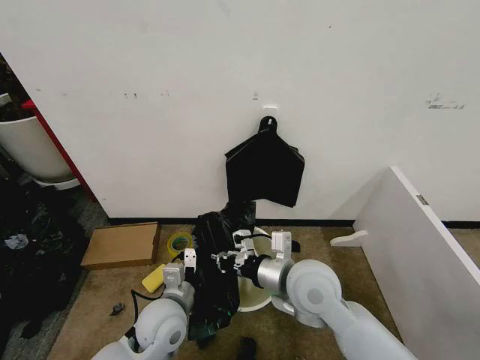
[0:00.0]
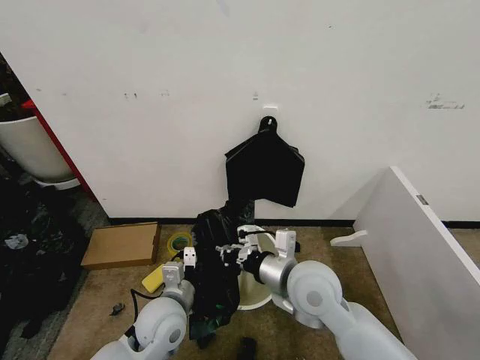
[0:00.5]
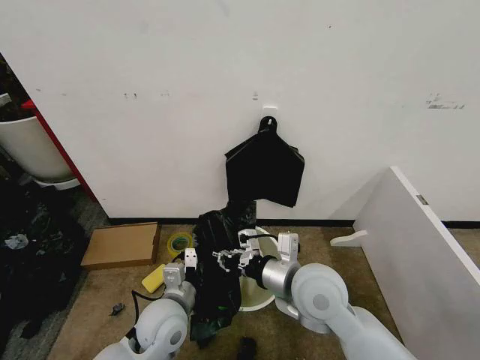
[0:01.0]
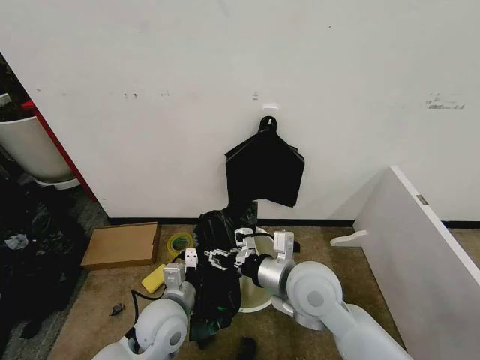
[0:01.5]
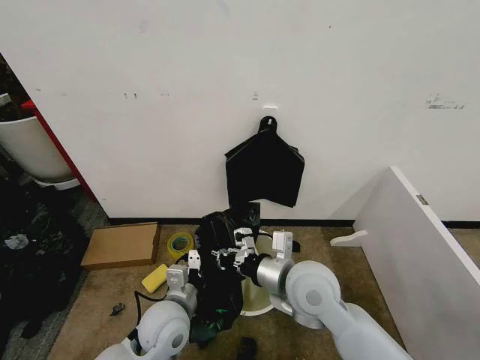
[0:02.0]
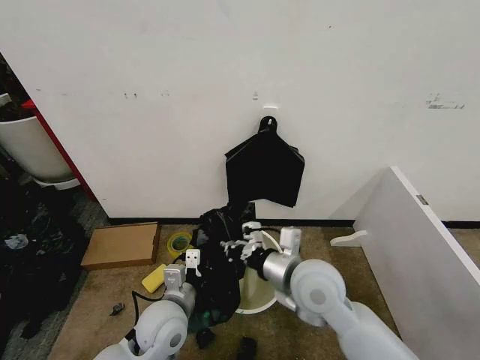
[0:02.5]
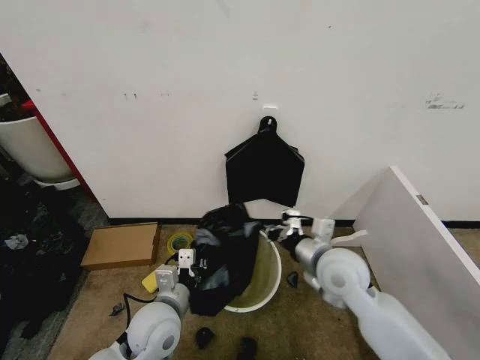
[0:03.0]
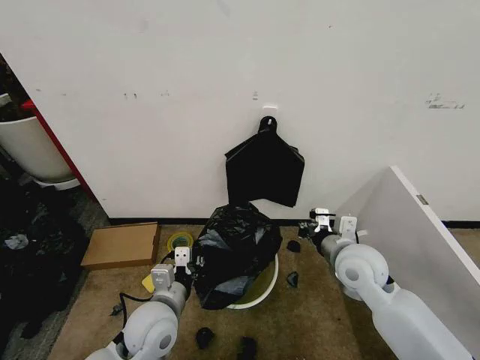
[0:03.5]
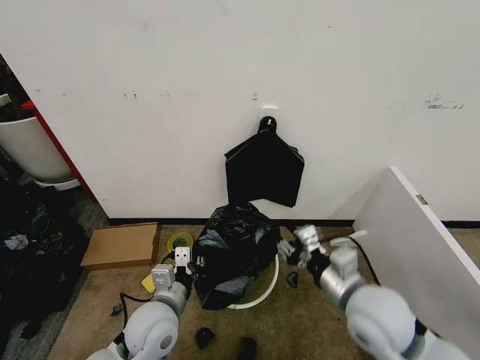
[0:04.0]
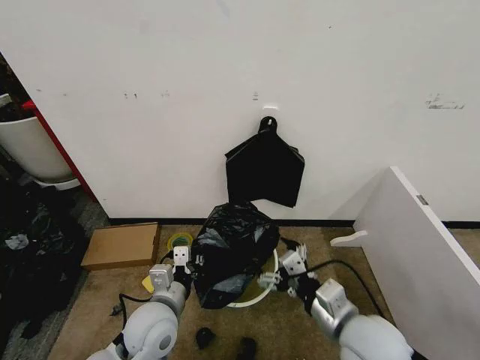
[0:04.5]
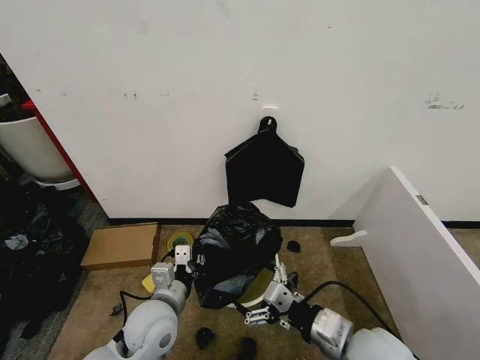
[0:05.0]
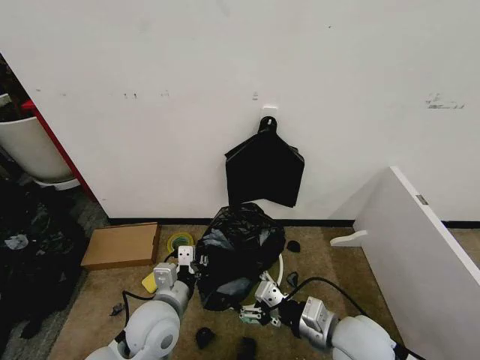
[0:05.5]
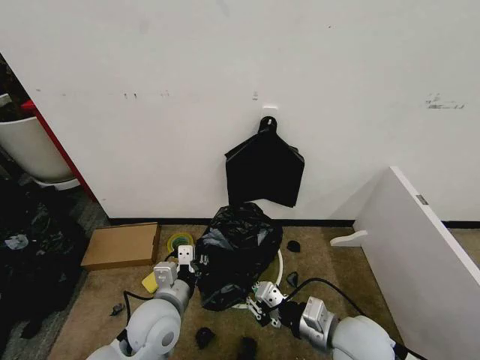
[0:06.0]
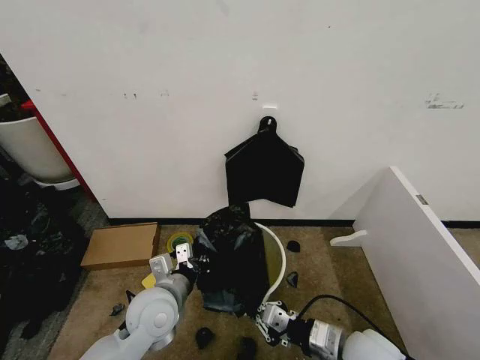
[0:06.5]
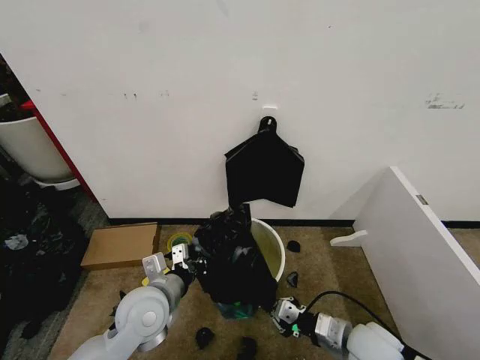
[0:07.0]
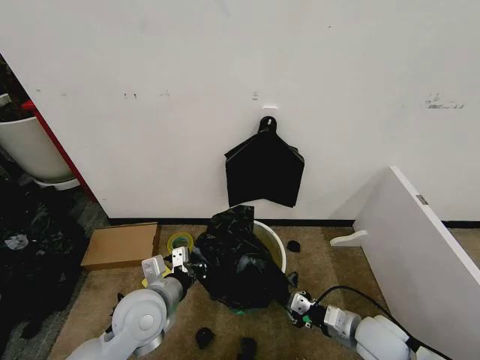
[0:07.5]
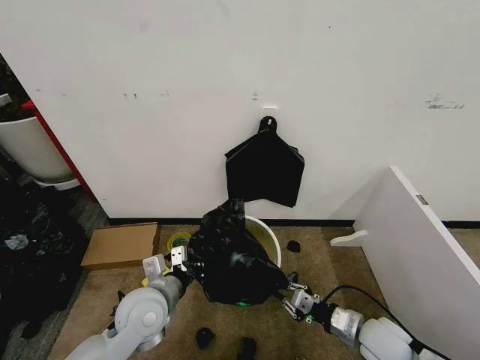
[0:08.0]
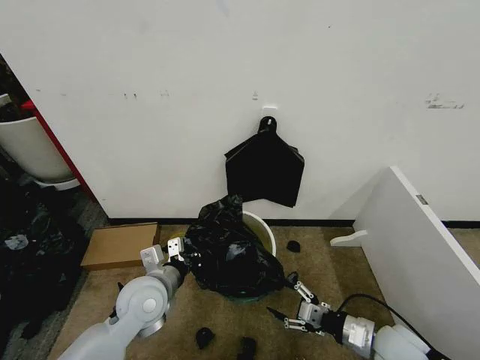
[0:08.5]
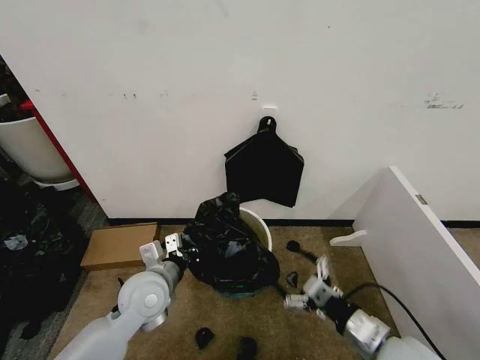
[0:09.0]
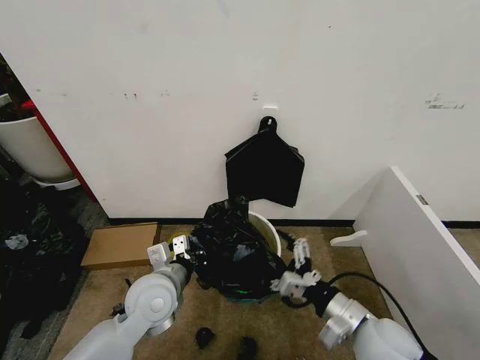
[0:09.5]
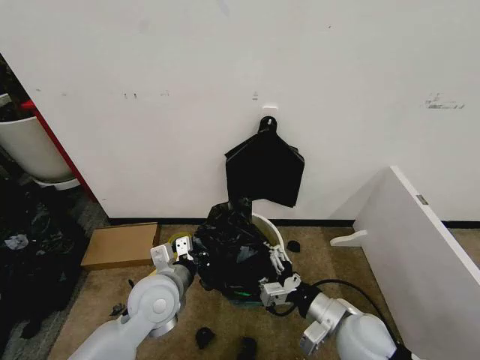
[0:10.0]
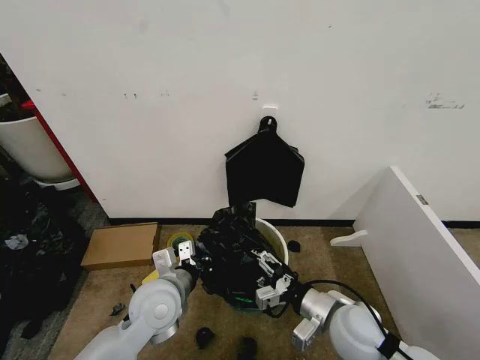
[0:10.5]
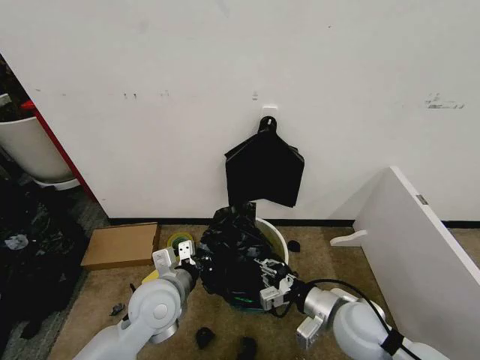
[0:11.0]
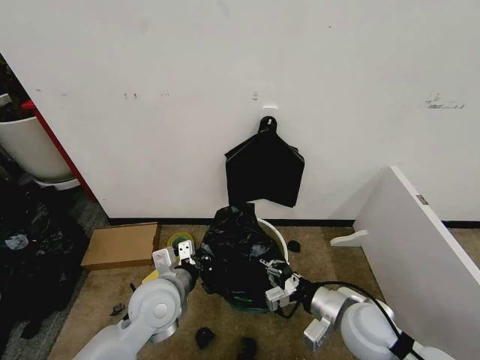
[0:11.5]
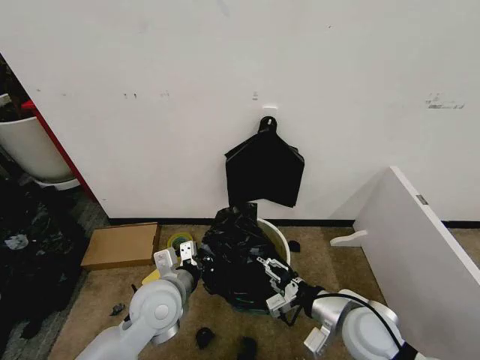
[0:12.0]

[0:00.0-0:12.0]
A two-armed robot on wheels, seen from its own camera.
Task of the whole recording: Place the garbage bag over the trash bin.
0:00.0 to 0:02.0: The right gripper opens, then closes once more.
0:02.0 to 0:04.0: The right gripper goes some 10 cm to the right, and opens its fingers.
0:04.0 to 0:06.0: The right gripper heads downward, covering some 5 cm, and opens and closes again.
0:06.0 to 0:08.0: The right gripper heads to the right and downward, covering roughly 15 cm.
0:08.0 to 0:10.0: The right gripper is displaced to the left and upward by some 10 cm, and opens up.
0:10.0 to 0:12.0: The right gripper closes, then opens again.

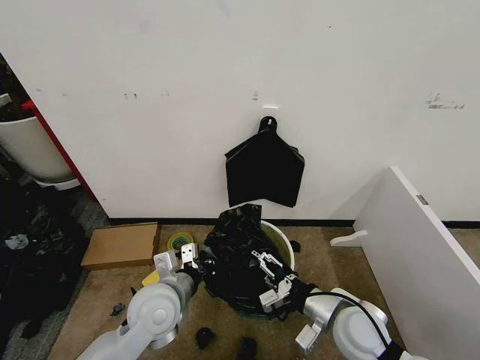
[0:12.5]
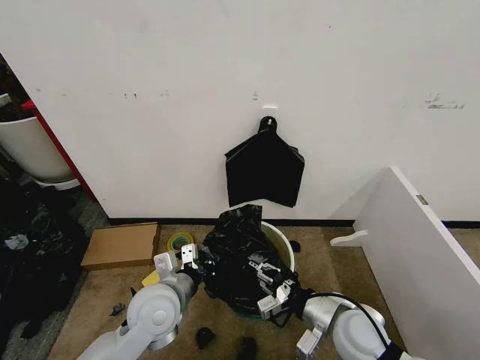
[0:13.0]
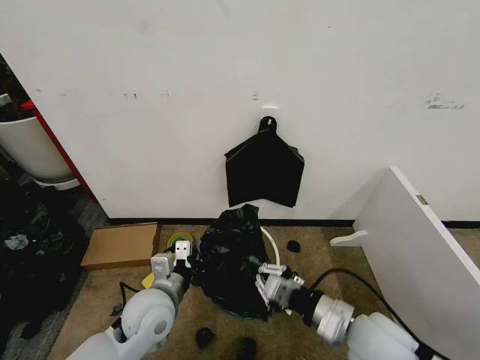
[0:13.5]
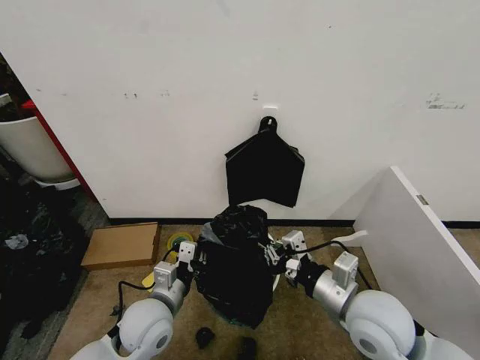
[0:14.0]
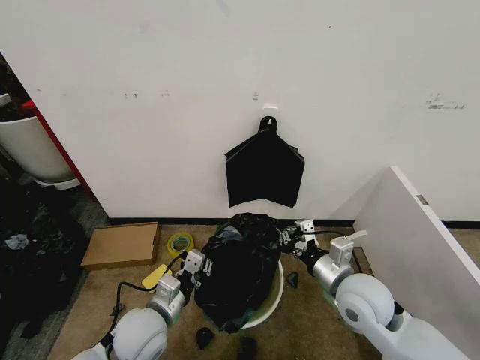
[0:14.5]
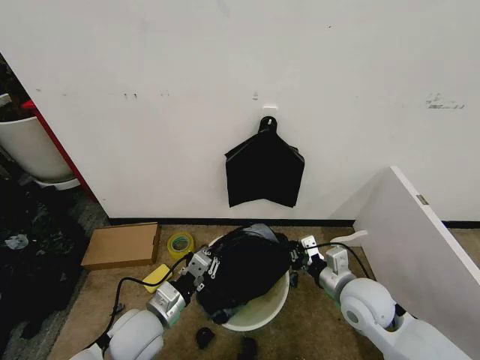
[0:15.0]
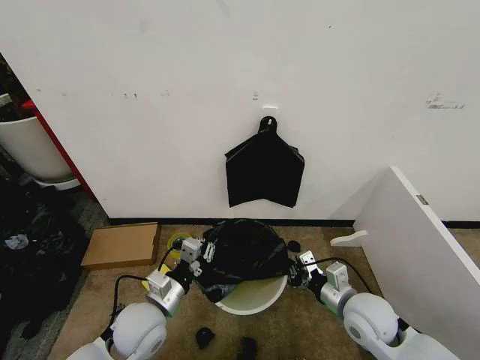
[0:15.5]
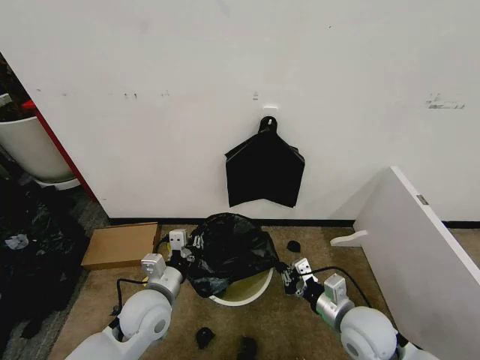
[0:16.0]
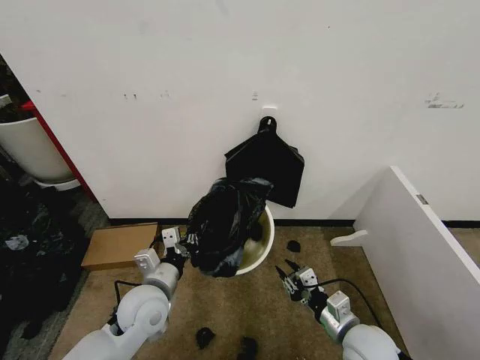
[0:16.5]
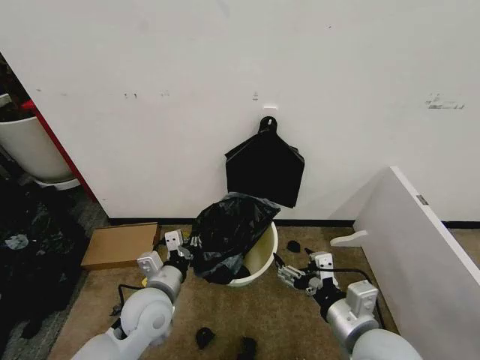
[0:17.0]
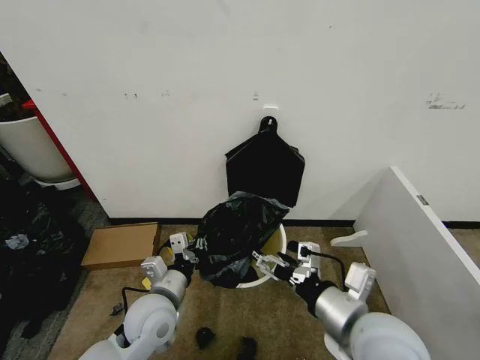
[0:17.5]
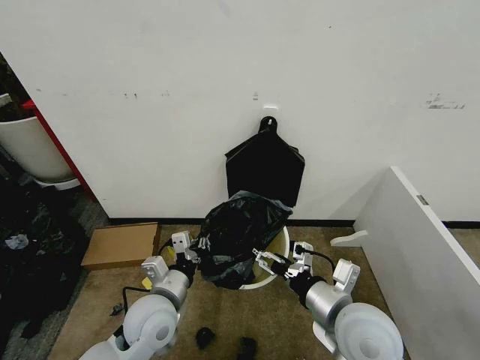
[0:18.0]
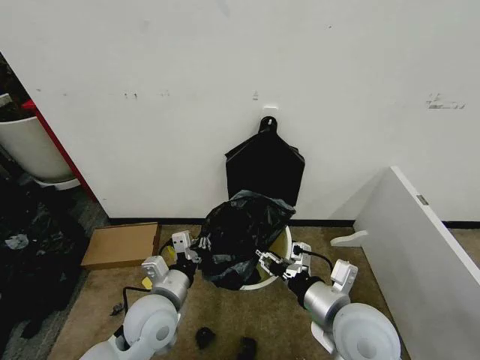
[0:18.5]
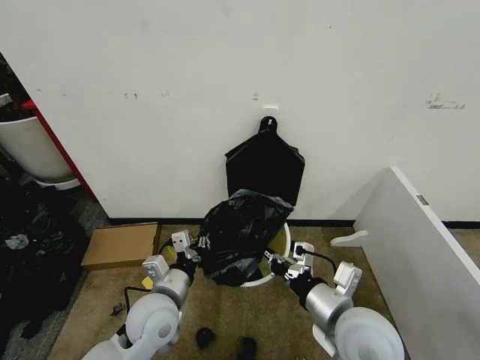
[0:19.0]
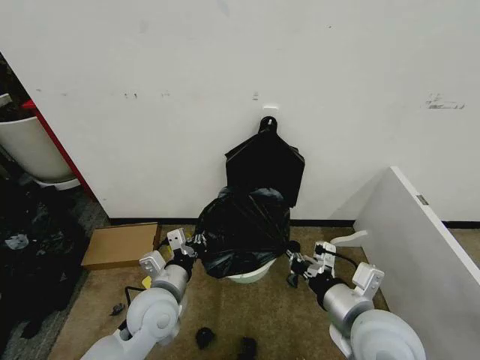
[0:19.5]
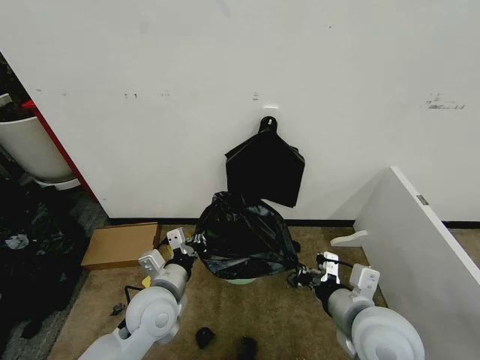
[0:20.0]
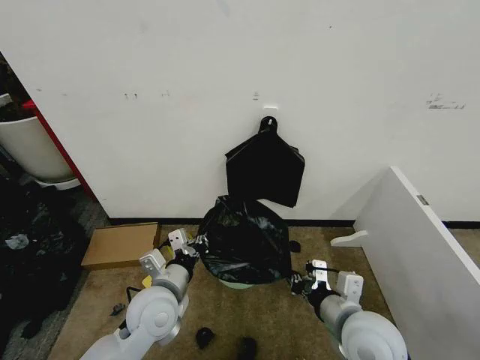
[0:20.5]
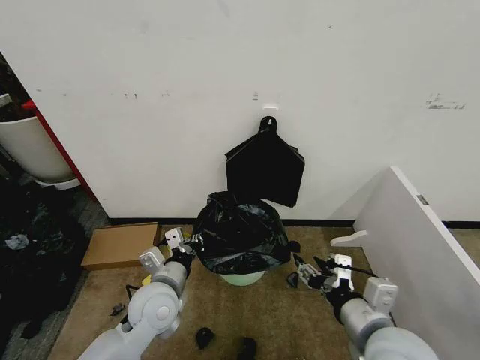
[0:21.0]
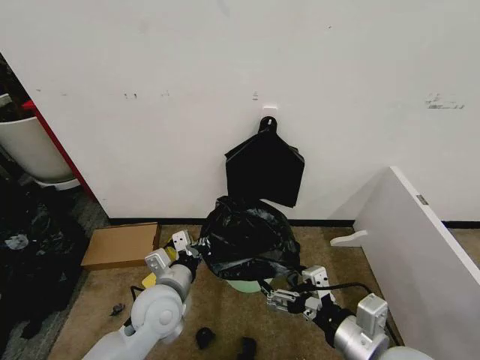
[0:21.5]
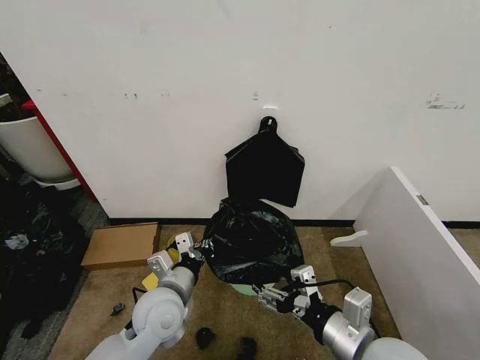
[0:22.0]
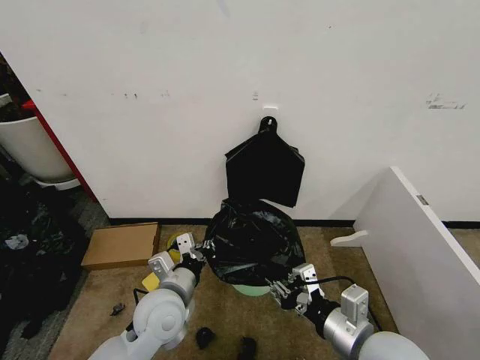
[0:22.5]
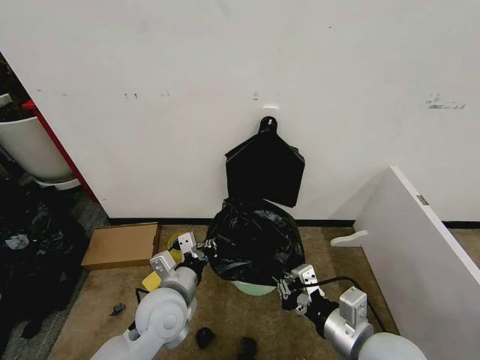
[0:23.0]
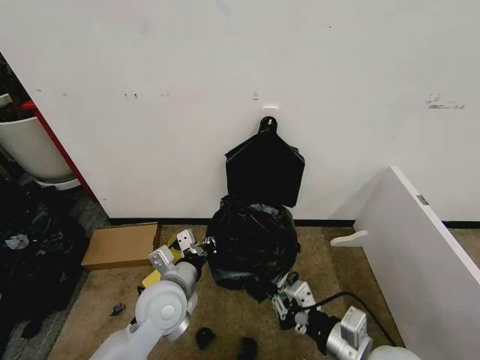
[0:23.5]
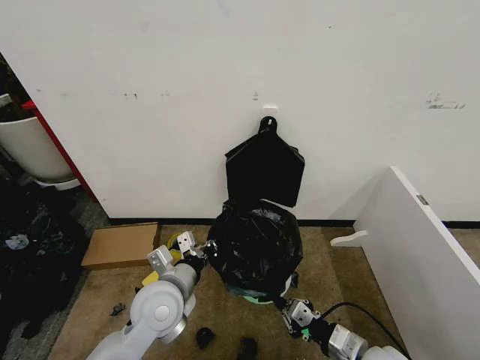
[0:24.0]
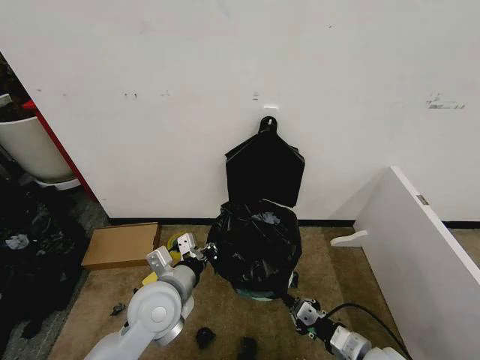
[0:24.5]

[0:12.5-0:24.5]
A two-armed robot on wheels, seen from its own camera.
Task of the whole recording: Place the garbage bag over the trash bin.
0:12.5 to 0:14.5: The right gripper ends up roughly 5 cm from where it was, and closes, while the left gripper travels downward by approximately 5 cm.
0:14.5 to 0:16.5: The right gripper travels downward and backward by some 10 cm.
0:16.5 to 0:18.5: The right gripper travels upward and to the left by about 15 cm, and opens, then closes again.
0:18.5 to 0:20.5: The right gripper closes its fingers.
0:20.5 to 0:22.5: The right gripper opens and closes again.
0:22.5 to 0:24.5: The right gripper is displaced downward and to the right by some 15 cm.

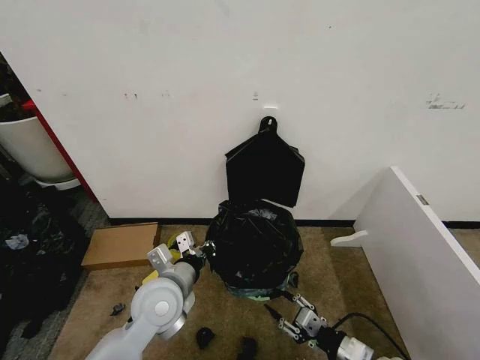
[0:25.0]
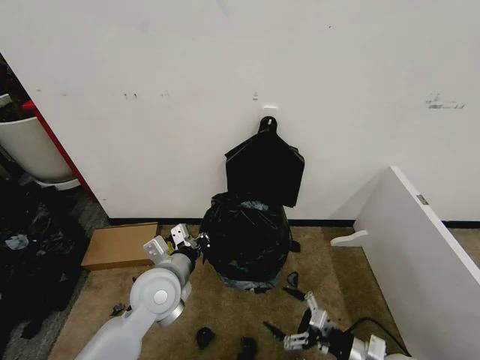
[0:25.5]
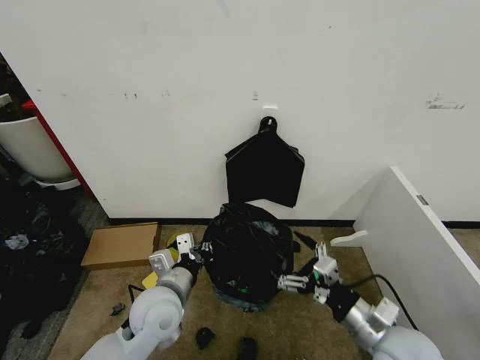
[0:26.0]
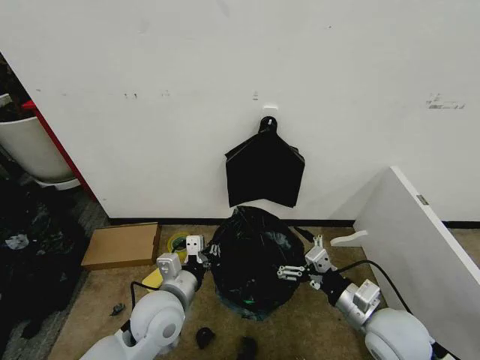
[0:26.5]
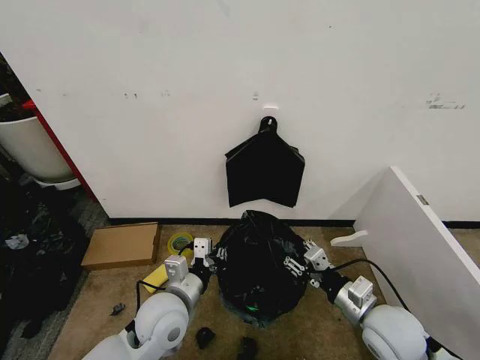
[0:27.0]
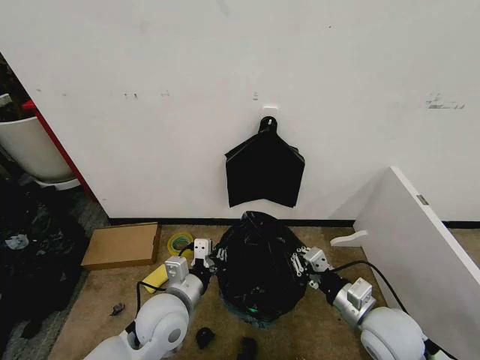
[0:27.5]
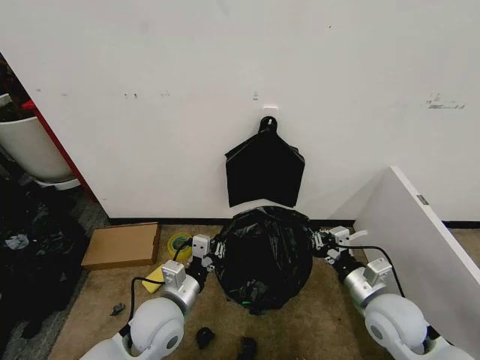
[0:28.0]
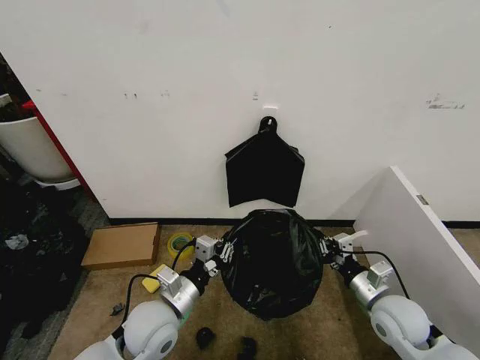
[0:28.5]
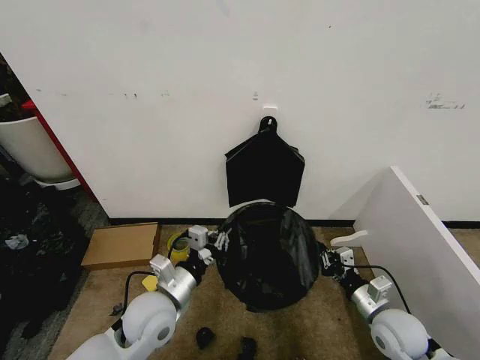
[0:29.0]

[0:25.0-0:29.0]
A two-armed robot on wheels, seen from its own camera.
Task of the whole recording: Place the garbage bag over the trash bin.
0:25.0 to 0:27.0: The right gripper goes roughly 10 cm upward and forward, and opens, then closes once more.
0:27.0 to 0:29.0: The right gripper moves downward and to the right, about 10 cm, and closes up.
